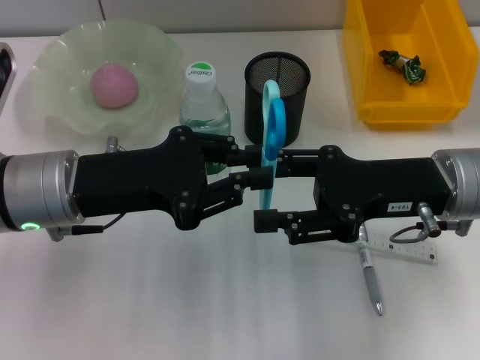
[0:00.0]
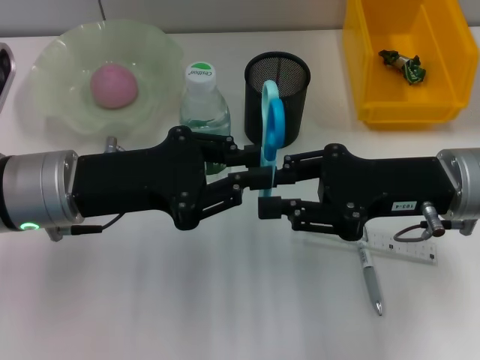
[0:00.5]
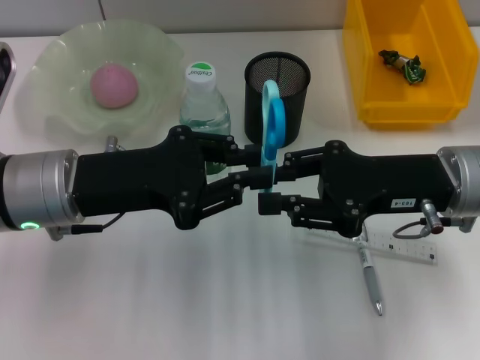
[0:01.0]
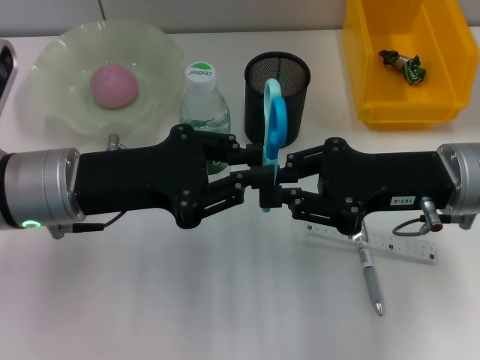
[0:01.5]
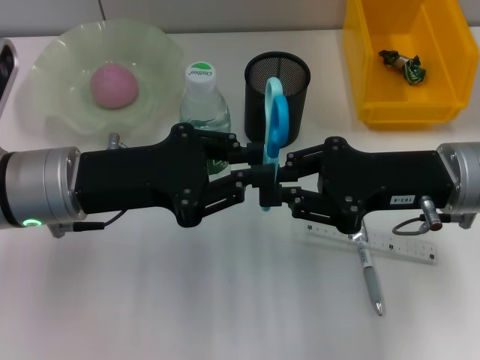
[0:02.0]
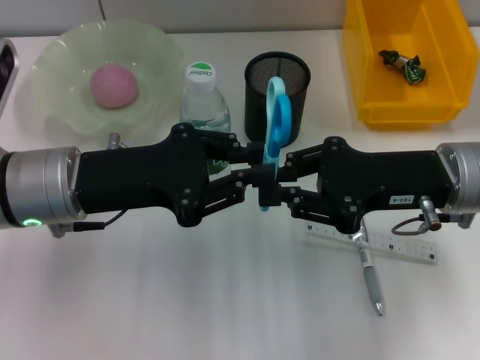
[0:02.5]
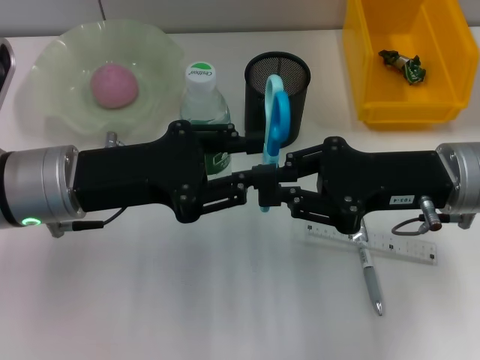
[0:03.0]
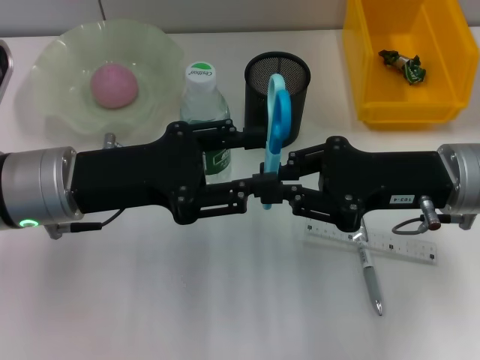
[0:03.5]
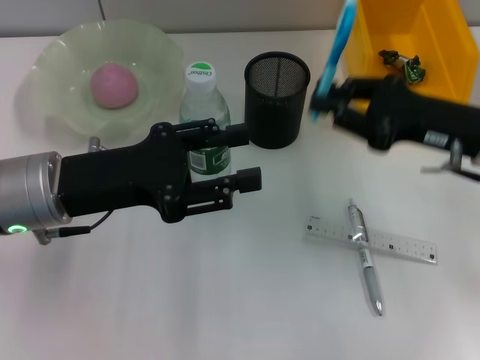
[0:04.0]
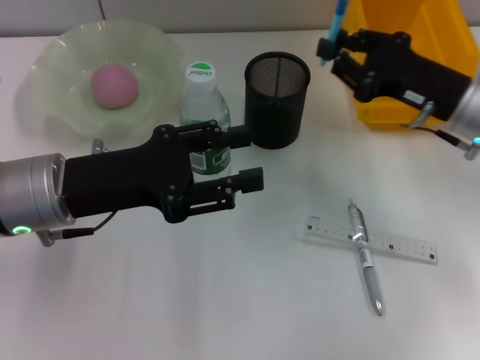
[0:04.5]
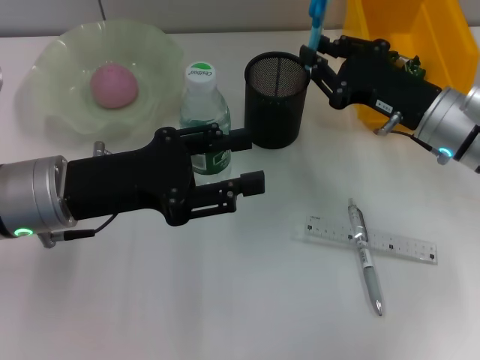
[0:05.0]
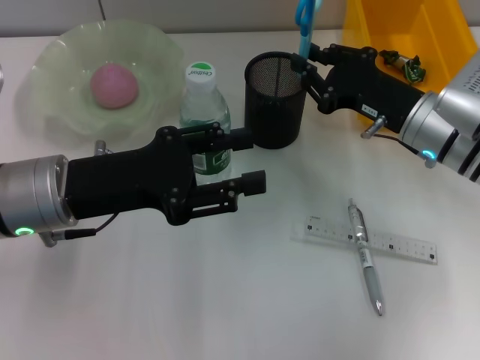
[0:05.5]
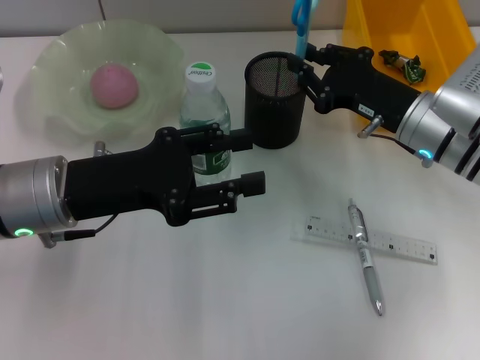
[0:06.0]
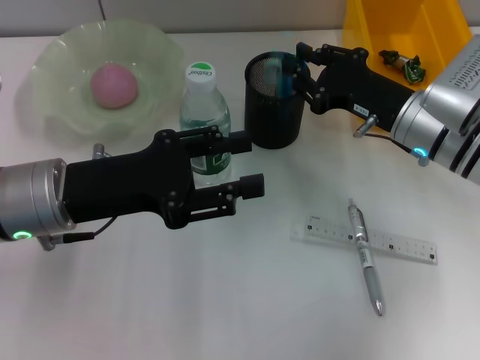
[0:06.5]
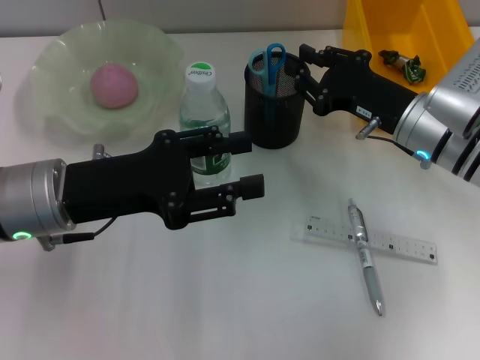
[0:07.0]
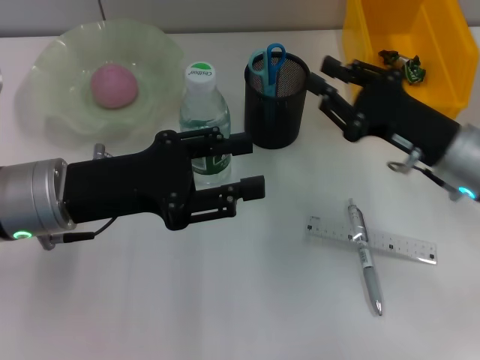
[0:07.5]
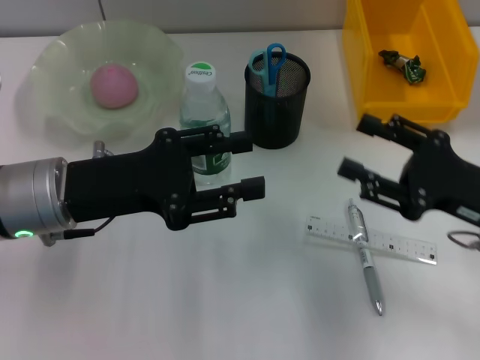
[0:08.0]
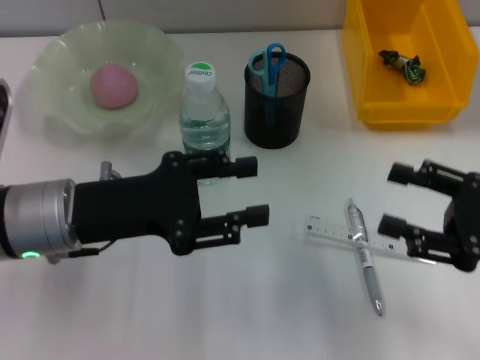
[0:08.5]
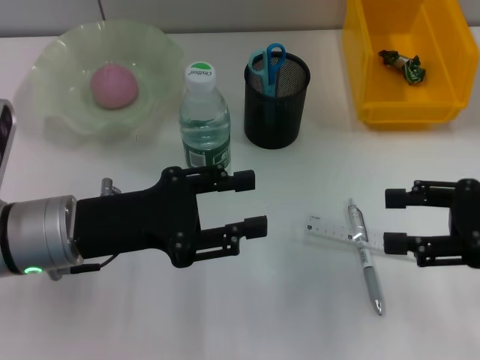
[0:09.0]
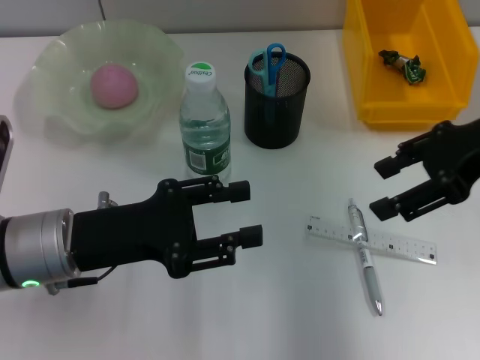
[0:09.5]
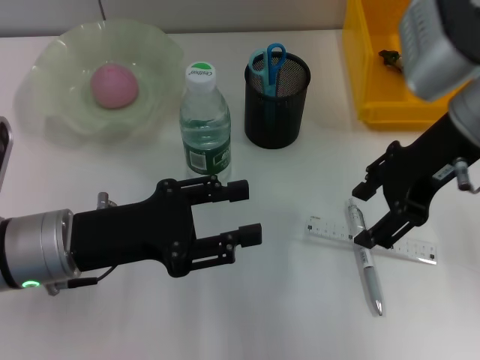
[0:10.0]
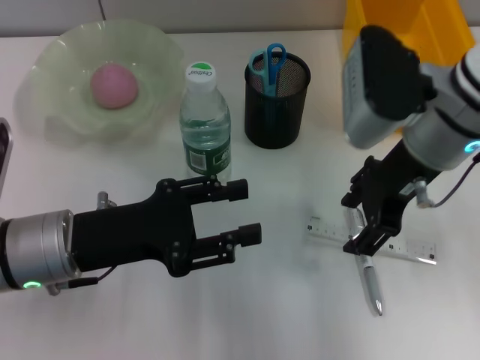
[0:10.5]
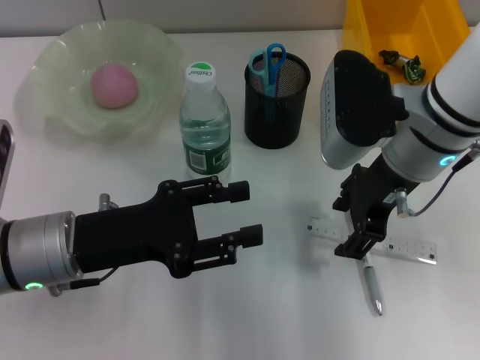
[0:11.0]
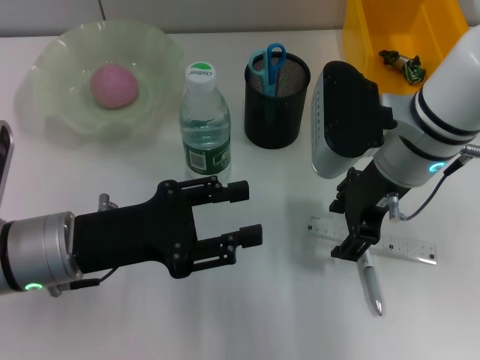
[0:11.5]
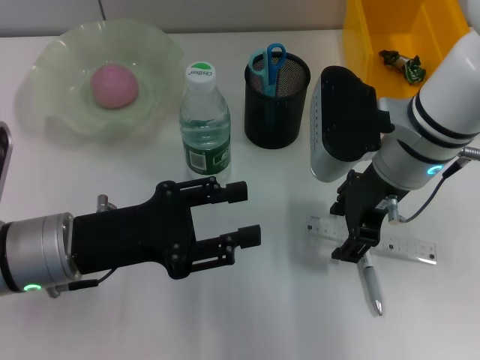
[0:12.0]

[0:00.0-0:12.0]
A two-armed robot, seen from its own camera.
Step, 0:00.0 to 0:03.0: Pass the blue scissors from the left hand to the right hand.
Step, 0:03.5 to 0:06.5: Place the blue scissors into the pen holder with the right hand.
0:00.0 to 0:02.0: The right gripper closes.
0:02.0 to 0:04.0: The left gripper opens up.
0:04.0 to 0:06.0: The right gripper changes place by approximately 10 cm.
0:06.0 to 0:08.0: The right gripper is displaced backward and to the right by approximately 15 cm, and opens its fingers.
0:08.0 to 0:10.0: The right gripper shifts about 20 cm upward, forward and to the left.
0:10.0 to 0:12.0: The right gripper shifts approximately 5 cm downward.

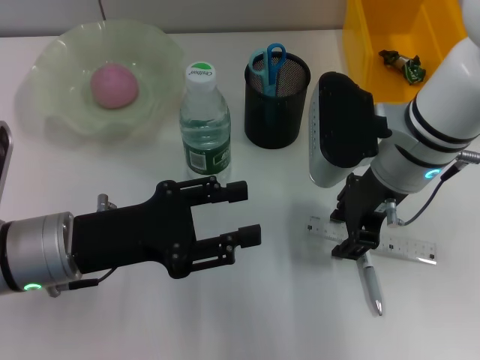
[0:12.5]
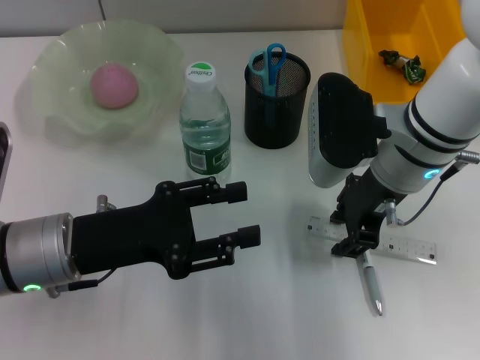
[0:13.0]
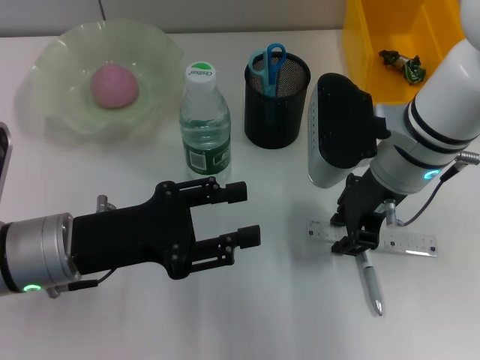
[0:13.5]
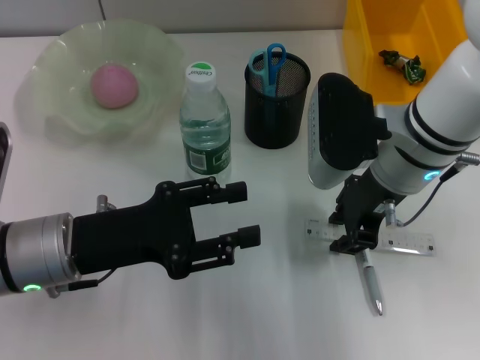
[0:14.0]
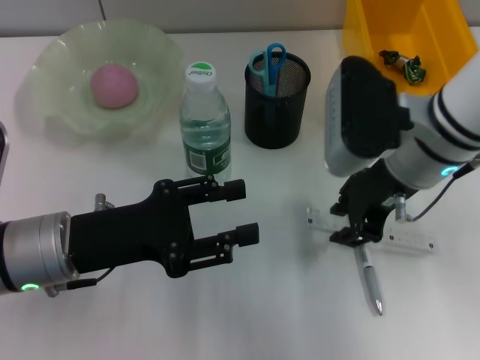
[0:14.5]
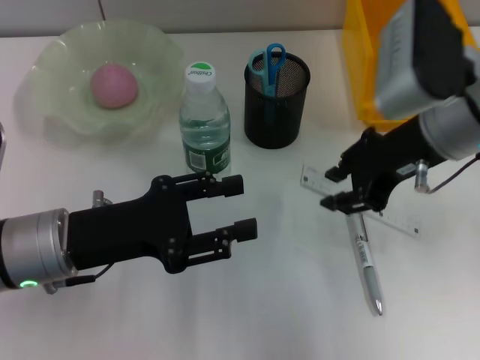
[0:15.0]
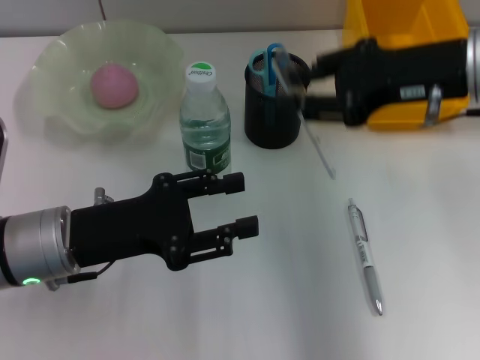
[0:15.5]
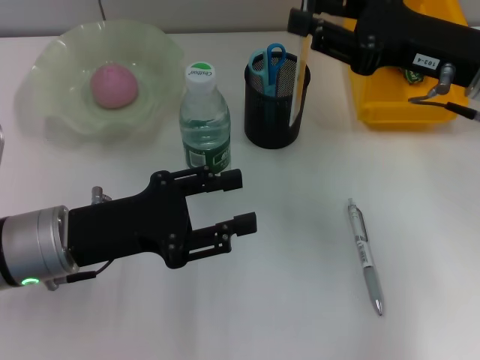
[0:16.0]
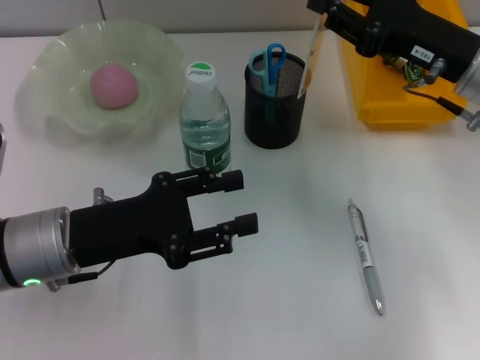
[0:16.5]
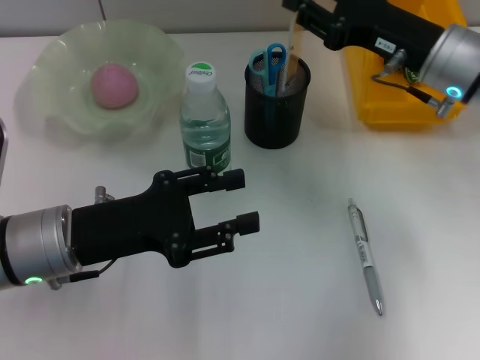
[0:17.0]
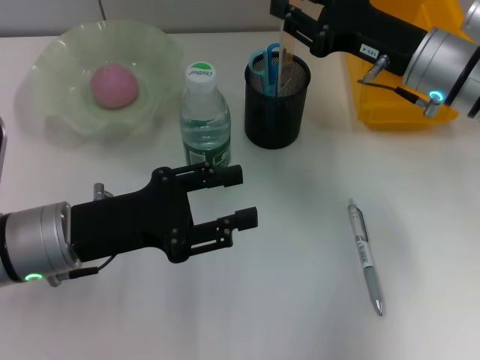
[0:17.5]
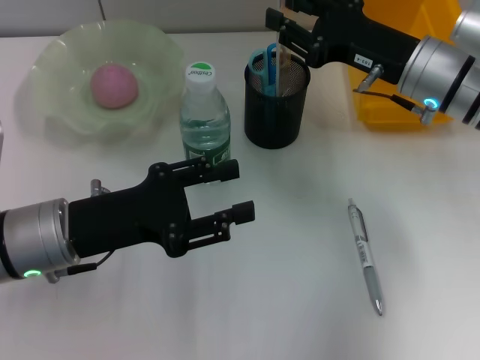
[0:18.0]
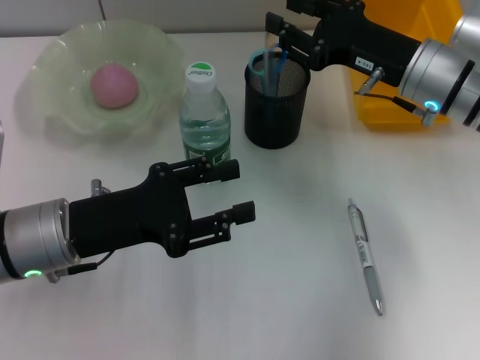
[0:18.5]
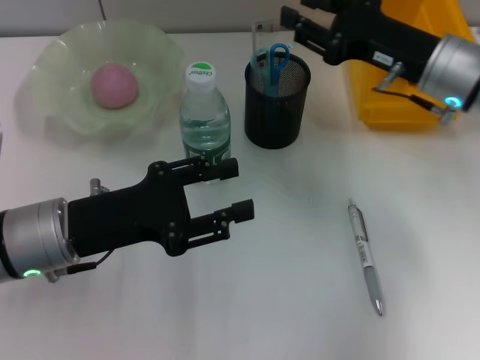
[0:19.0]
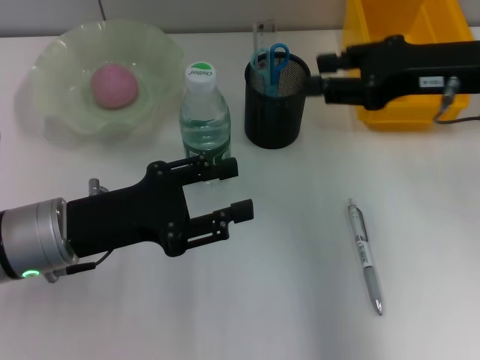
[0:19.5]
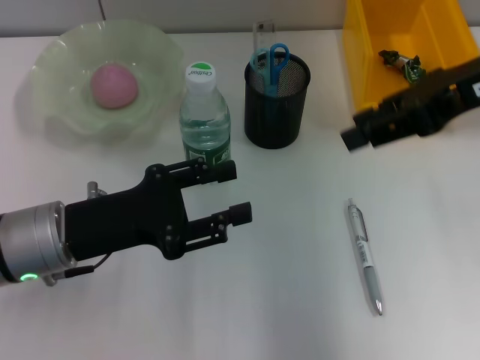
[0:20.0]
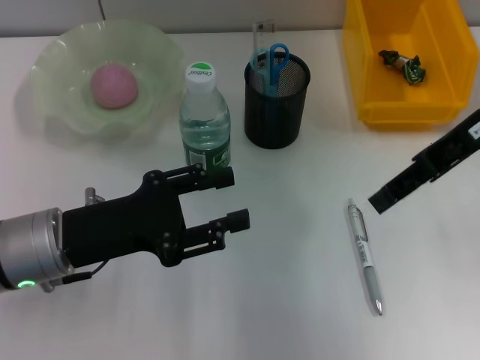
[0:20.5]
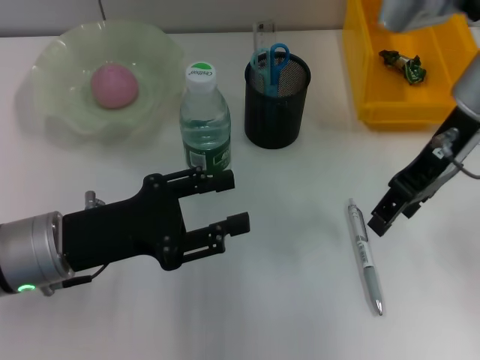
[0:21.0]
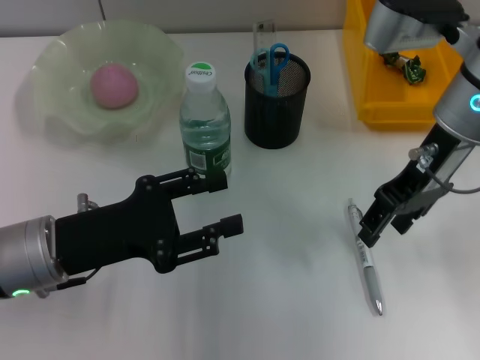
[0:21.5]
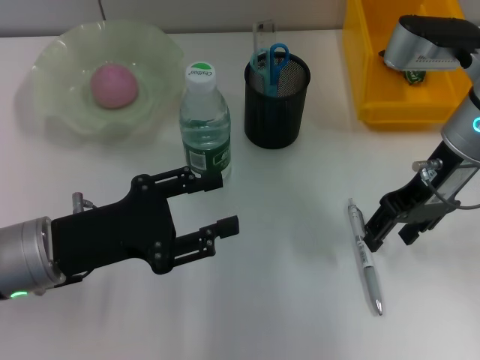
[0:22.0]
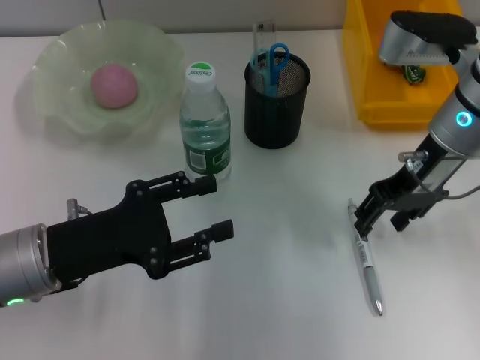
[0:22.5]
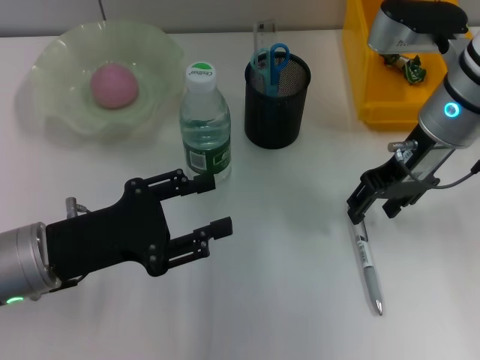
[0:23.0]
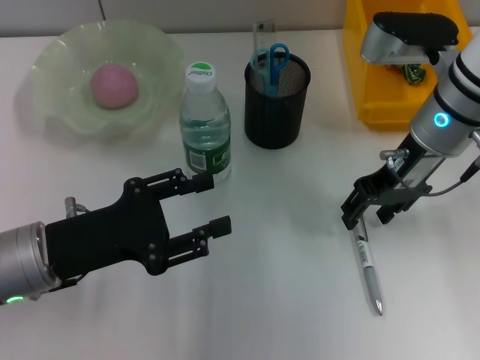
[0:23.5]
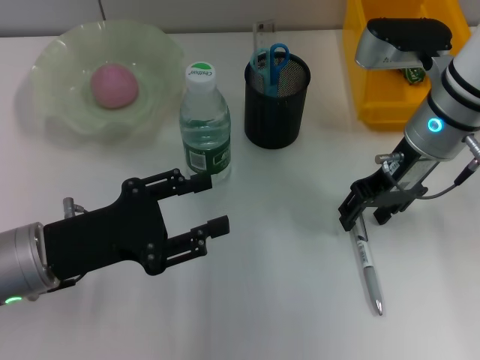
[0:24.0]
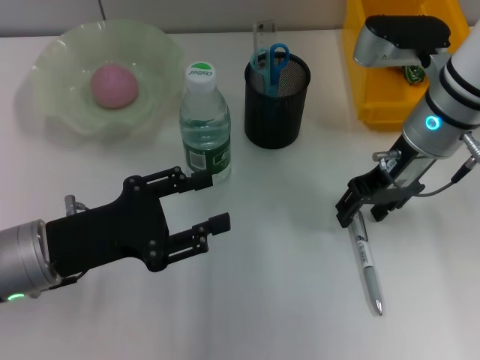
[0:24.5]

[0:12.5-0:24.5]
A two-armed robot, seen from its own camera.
Step, 0:14.5 to 0:18.5: Place the ruler into the pen holder with the right hand.
0:12.5 to 0:14.5: The right gripper closes its fingers.
0:14.5 to 0:16.5: The right gripper is displaced to the right by roughly 10 cm.
0:16.5 to 0:18.5: The right gripper moves approximately 5 cm.
0:18.5 to 0:20.5: The right gripper heads upward, covering approximately 10 cm.
0:20.5 to 0:22.5: The right gripper goes about 10 cm downward.
0:22.5 to 0:24.5: There are only small adjustments of the grippers.

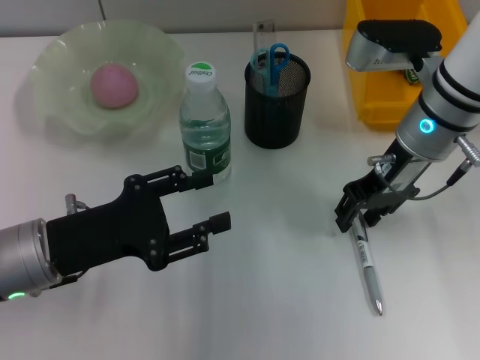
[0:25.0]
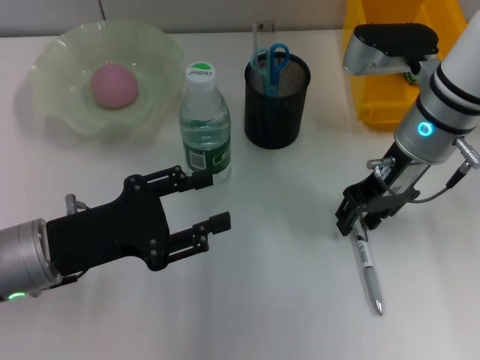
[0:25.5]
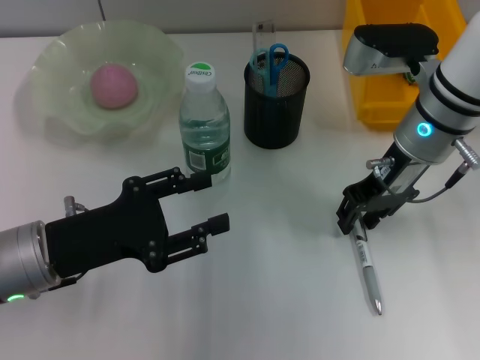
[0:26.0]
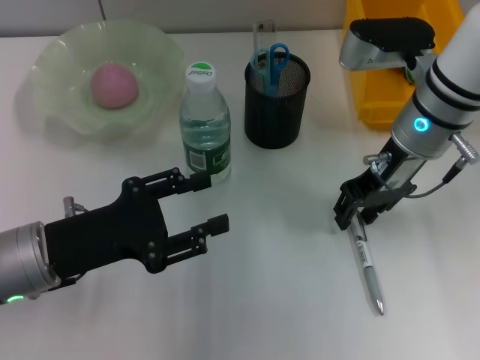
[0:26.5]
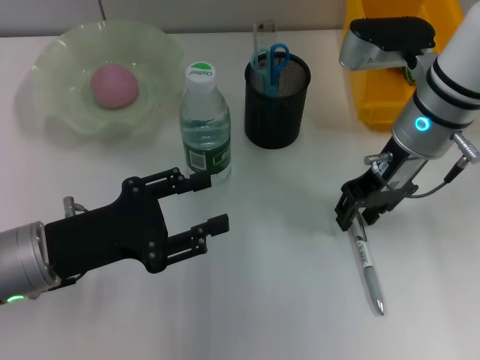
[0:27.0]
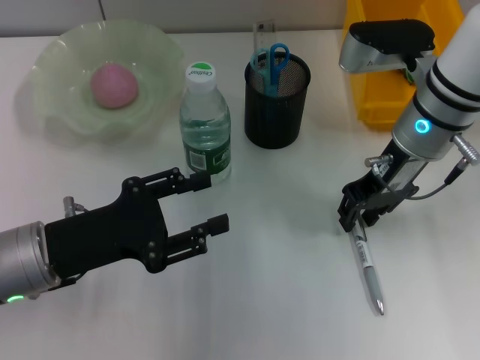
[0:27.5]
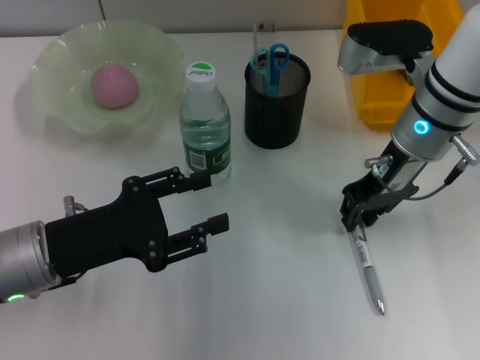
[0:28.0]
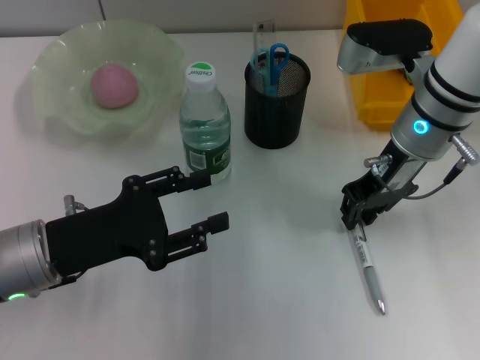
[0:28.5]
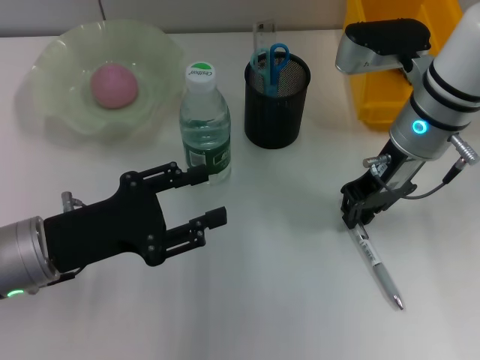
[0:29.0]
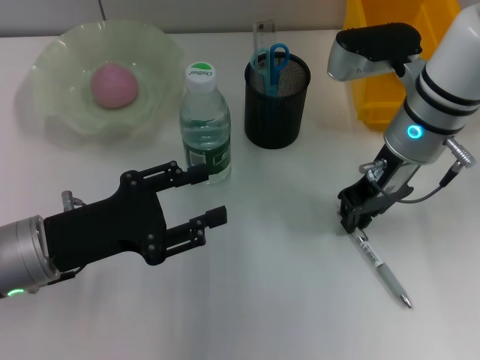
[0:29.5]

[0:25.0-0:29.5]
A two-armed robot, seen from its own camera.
0:25.0 to 0:27.0: Neither gripper changes place.
0:27.0 to 0:29.5: Neither gripper changes place.
